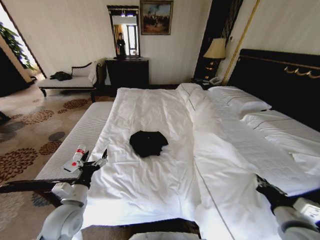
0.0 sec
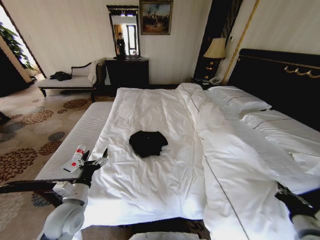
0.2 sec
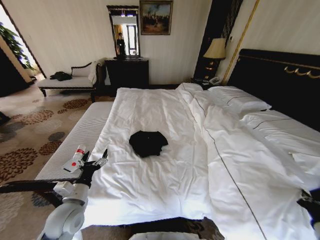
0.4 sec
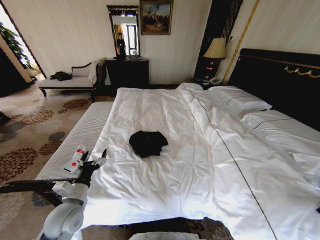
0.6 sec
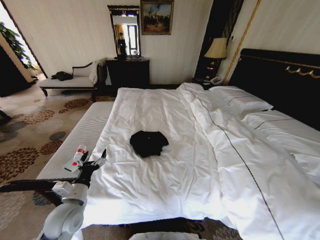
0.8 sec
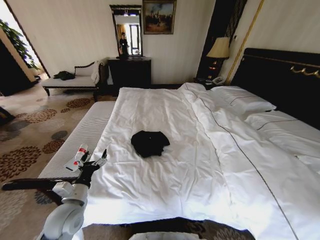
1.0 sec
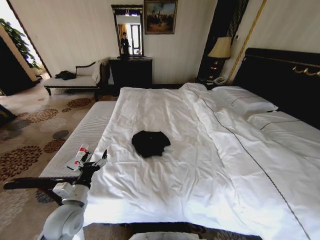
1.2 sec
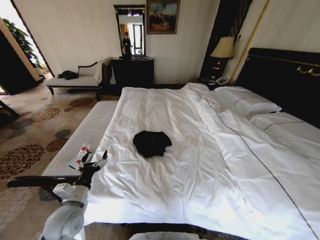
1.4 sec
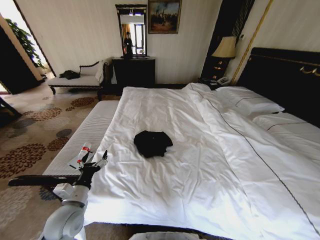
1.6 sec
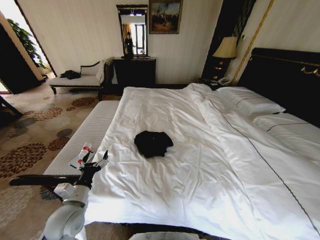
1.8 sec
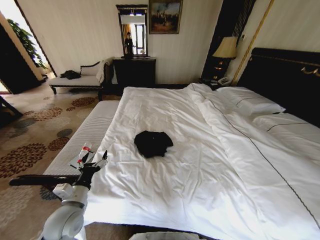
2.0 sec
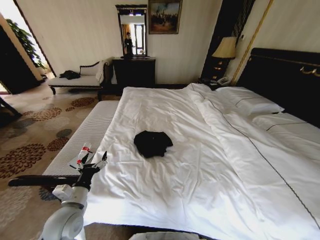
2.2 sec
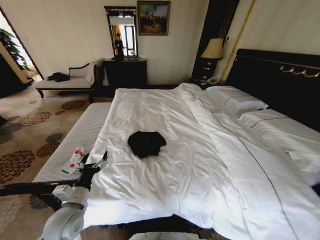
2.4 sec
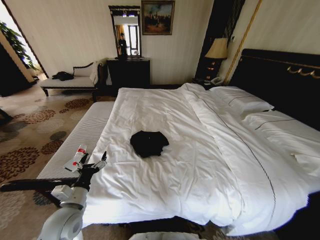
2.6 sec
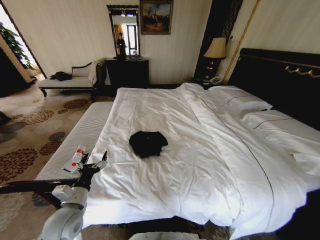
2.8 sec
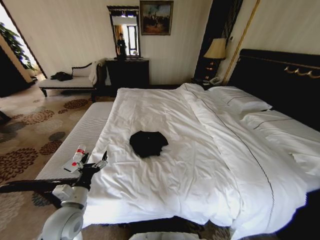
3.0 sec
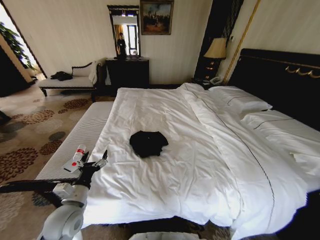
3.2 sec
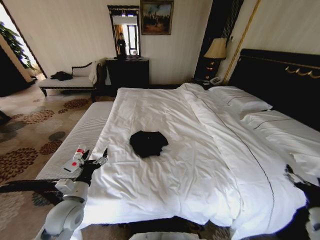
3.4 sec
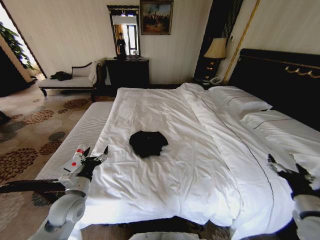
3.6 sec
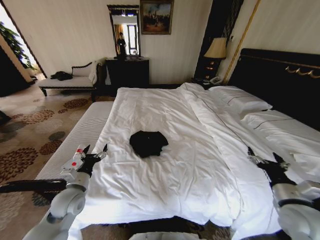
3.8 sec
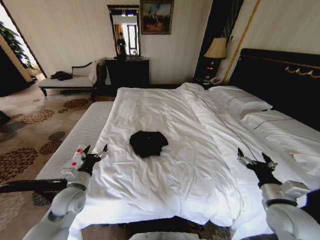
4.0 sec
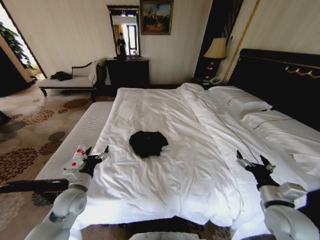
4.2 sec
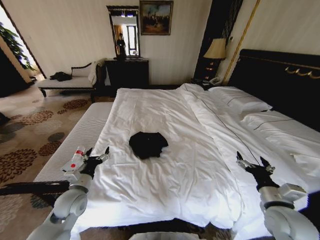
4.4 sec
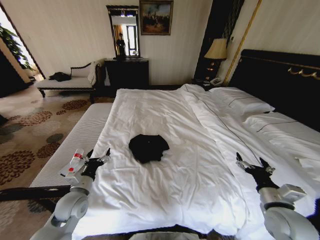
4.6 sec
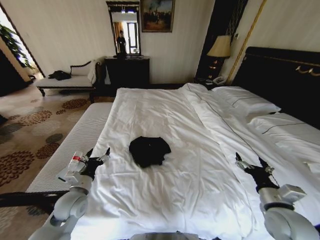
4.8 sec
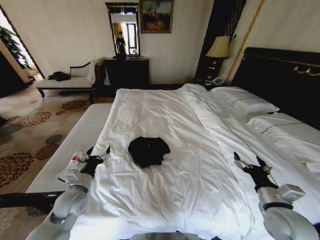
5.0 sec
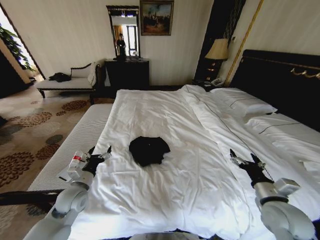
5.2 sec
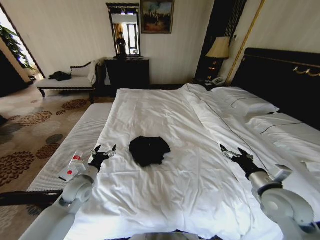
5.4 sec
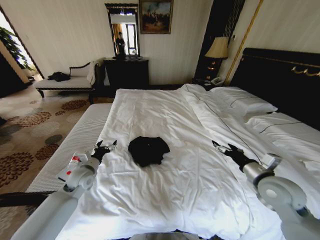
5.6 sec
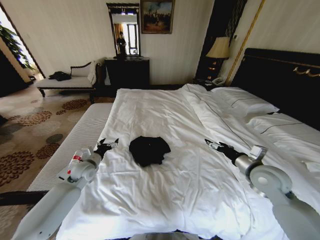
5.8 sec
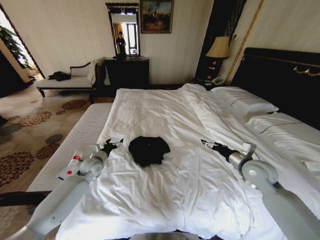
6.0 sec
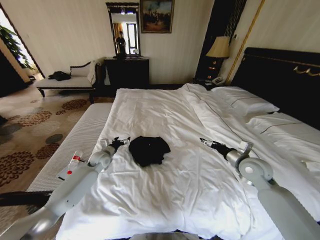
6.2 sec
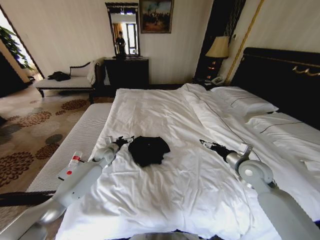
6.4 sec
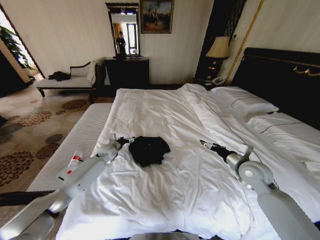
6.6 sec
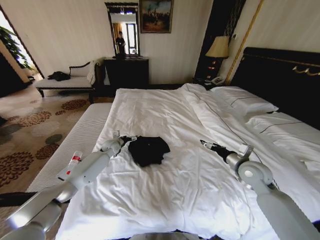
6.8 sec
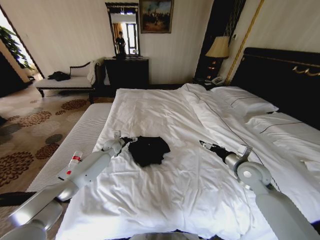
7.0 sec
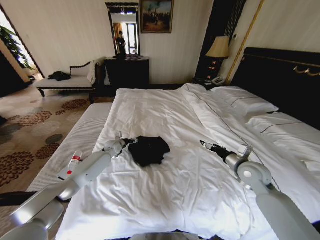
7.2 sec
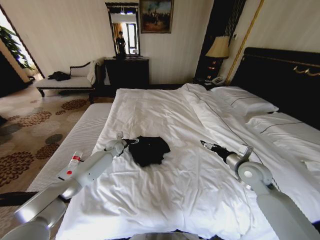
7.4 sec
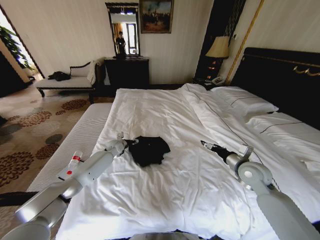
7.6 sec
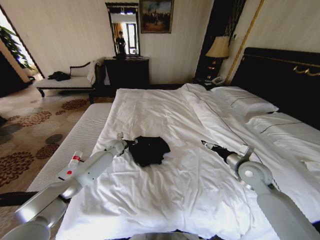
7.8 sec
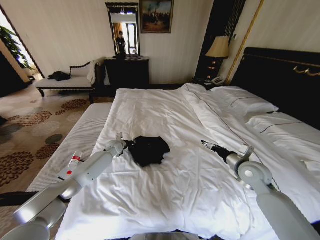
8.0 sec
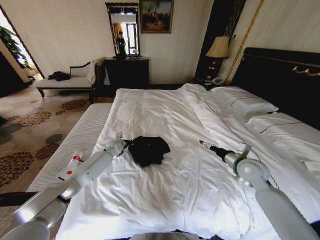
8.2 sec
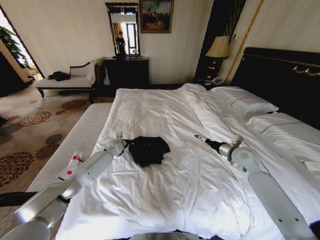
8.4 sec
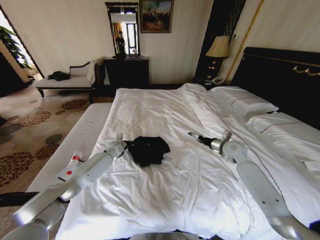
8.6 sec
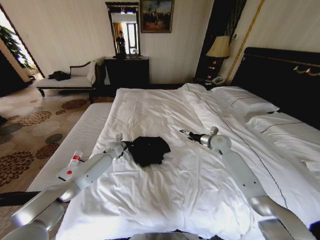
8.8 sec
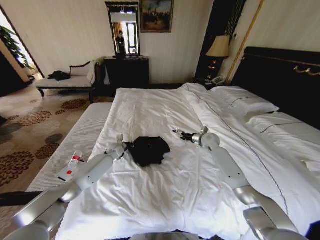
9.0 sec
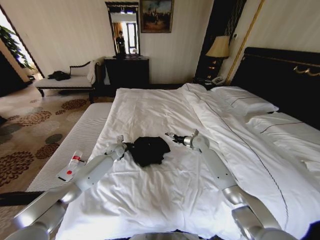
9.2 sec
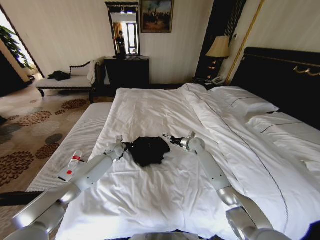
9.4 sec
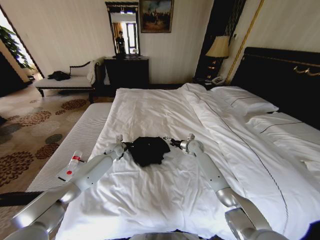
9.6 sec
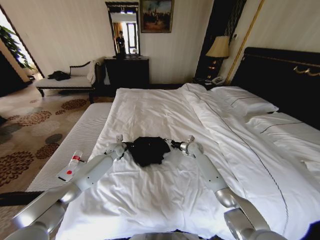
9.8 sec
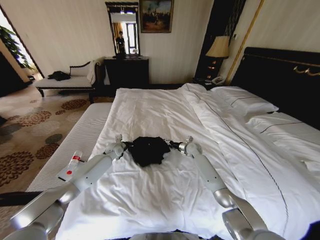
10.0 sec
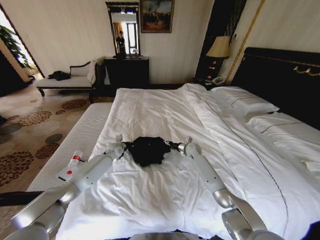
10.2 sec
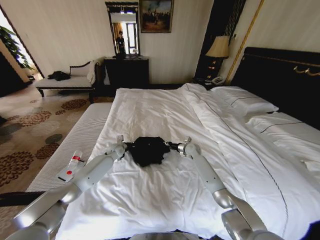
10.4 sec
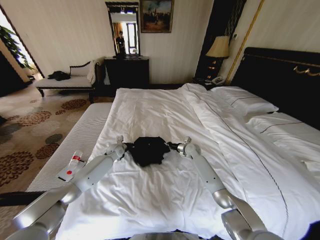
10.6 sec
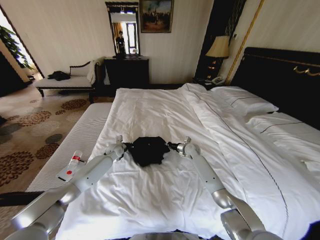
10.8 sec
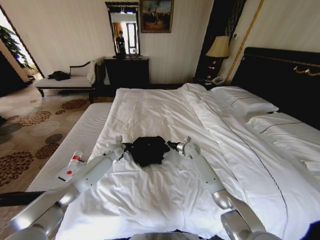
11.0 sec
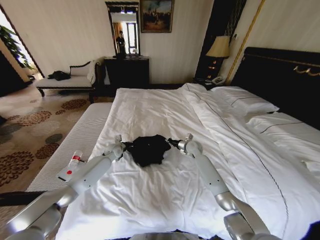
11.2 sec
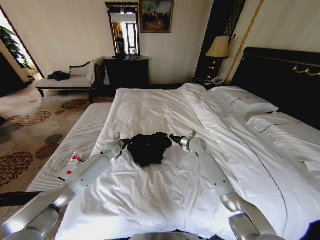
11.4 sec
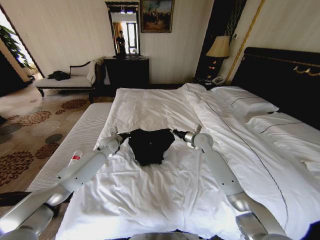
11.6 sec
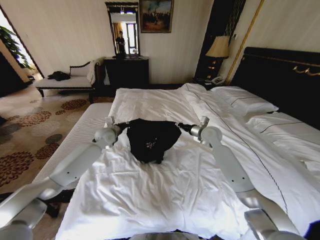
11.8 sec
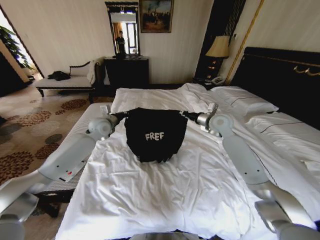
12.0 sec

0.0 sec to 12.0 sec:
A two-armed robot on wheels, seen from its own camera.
Task of the whole recording: Fold the clothes on the bed.
0.0 sec to 1.6 sec: The right gripper shifts roughly 30 cm to the right.
1.6 sec to 3.0 sec: The right gripper goes about 10 cm to the left, and opens.
3.0 sec to 4.4 sec: The left gripper heads forward, covering roughly 5 cm, while the right gripper shifts some 25 cm to the left and forward.
4.4 sec to 6.0 sec: The two grippers go approximately 15 cm forward.
6.0 sec to 7.6 sec: The left gripper is displaced forward and to the right by approximately 15 cm.
7.6 sec to 9.0 sec: The right gripper is displaced forward by roughly 20 cm; the left gripper closes.
9.0 sec to 10.4 sec: The right gripper is displaced downward and to the left by some 10 cm, and closes.
10.4 sec to 12.0 sec: The grippers both shift upward by approximately 20 cm. The right gripper closes its fingers.

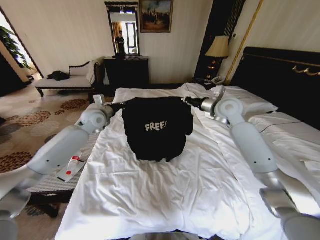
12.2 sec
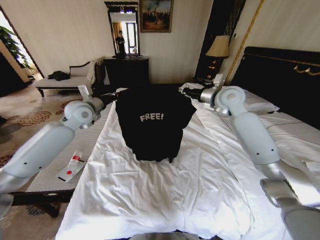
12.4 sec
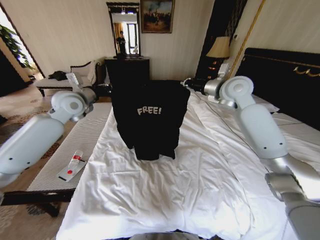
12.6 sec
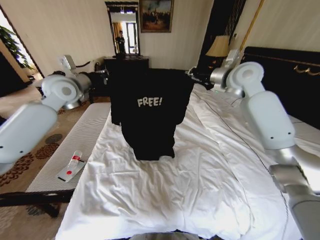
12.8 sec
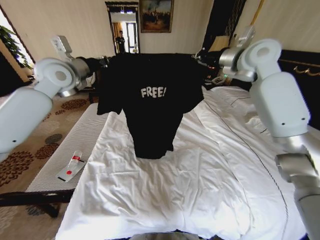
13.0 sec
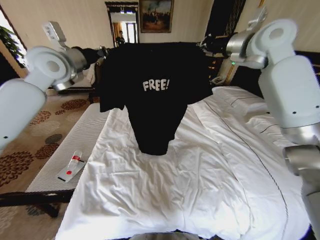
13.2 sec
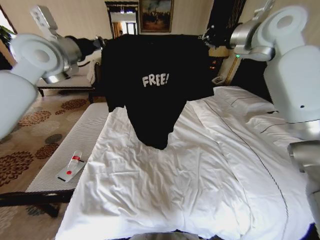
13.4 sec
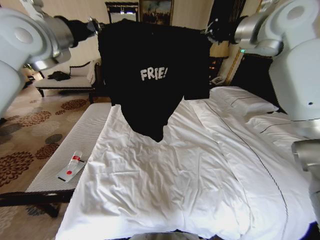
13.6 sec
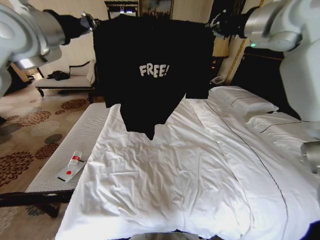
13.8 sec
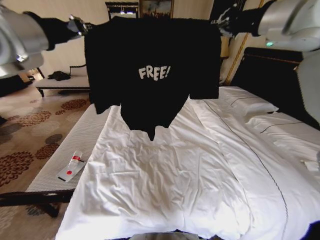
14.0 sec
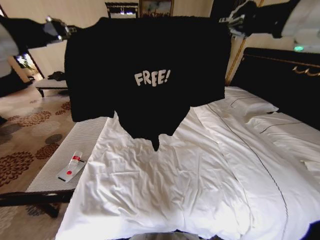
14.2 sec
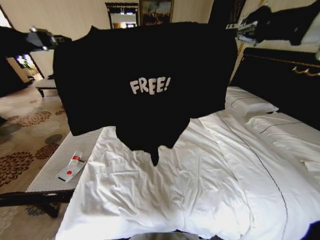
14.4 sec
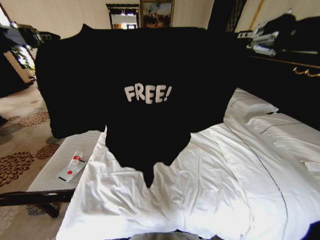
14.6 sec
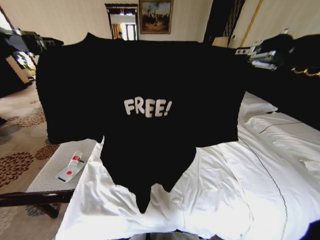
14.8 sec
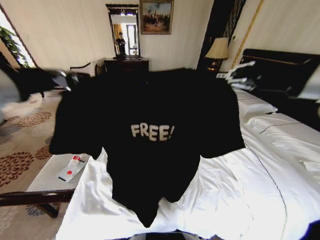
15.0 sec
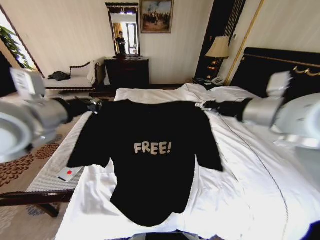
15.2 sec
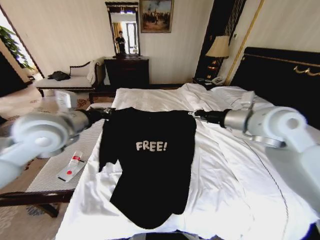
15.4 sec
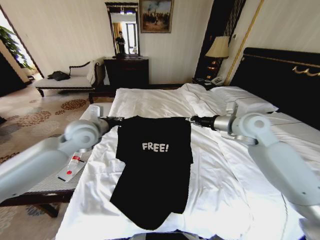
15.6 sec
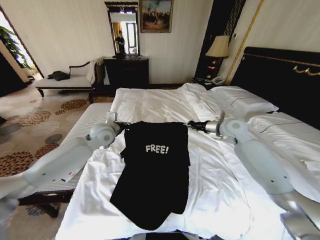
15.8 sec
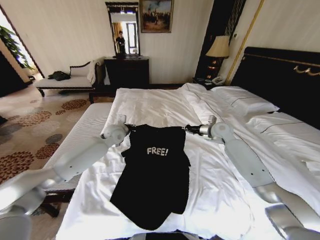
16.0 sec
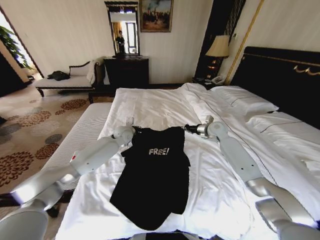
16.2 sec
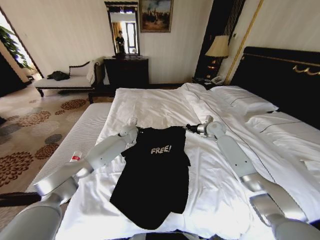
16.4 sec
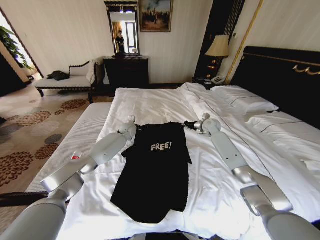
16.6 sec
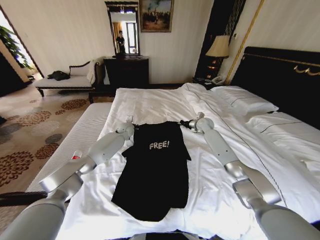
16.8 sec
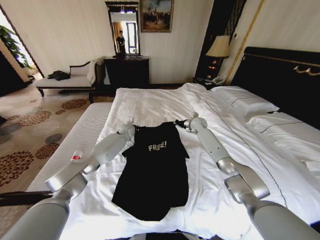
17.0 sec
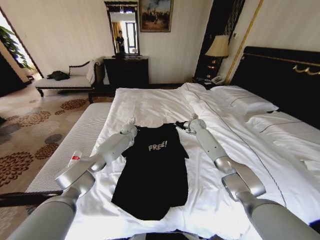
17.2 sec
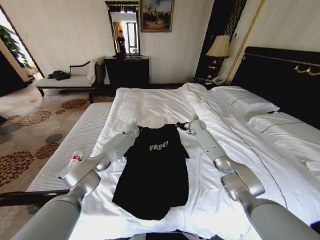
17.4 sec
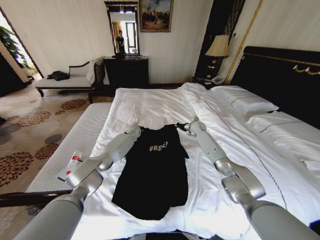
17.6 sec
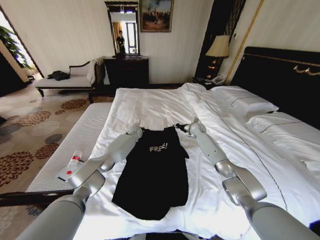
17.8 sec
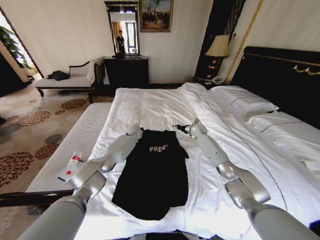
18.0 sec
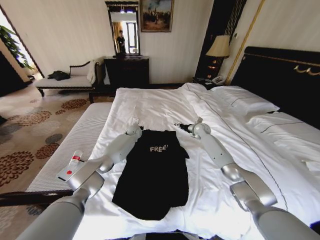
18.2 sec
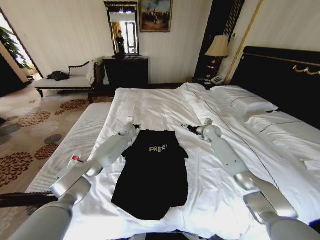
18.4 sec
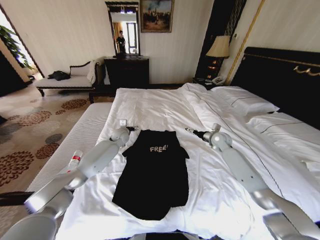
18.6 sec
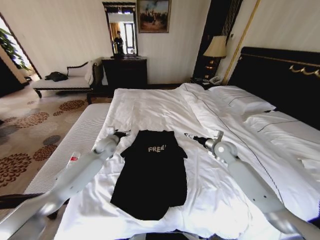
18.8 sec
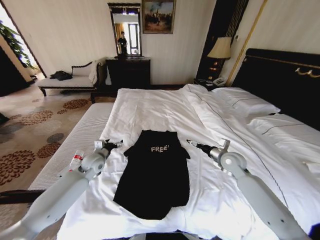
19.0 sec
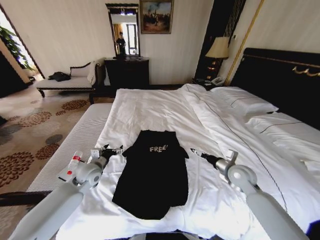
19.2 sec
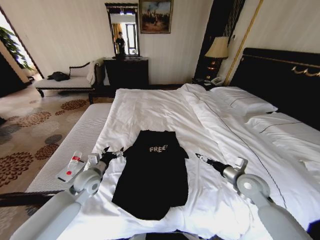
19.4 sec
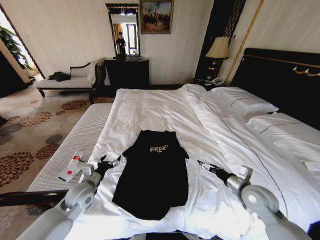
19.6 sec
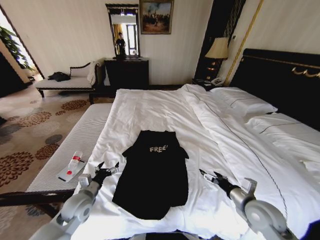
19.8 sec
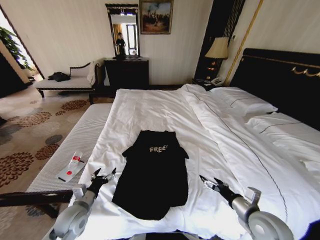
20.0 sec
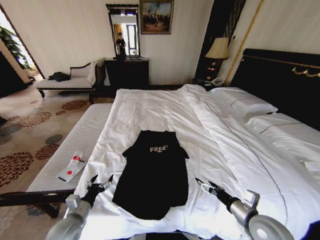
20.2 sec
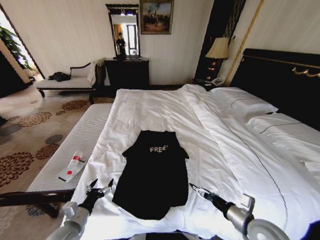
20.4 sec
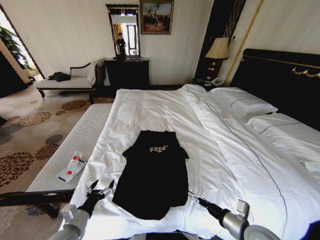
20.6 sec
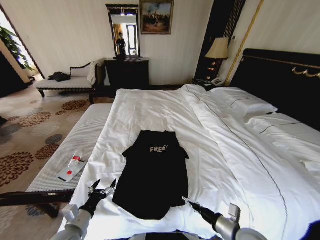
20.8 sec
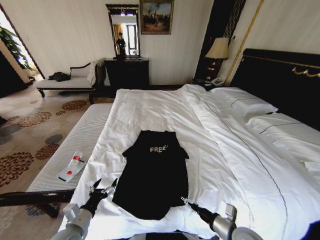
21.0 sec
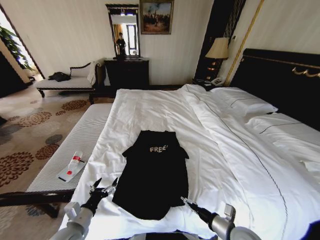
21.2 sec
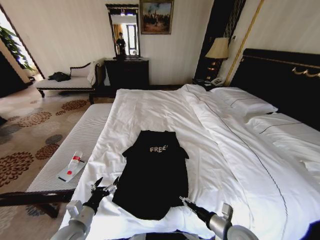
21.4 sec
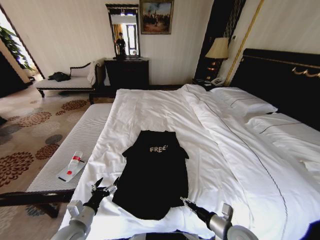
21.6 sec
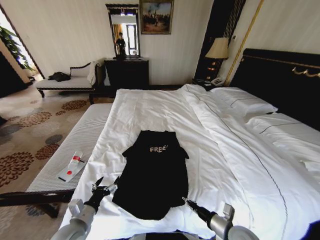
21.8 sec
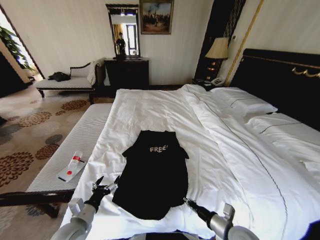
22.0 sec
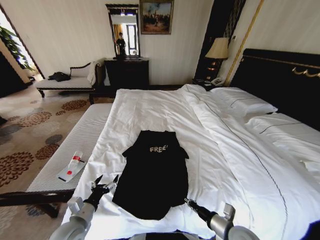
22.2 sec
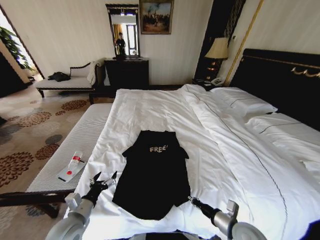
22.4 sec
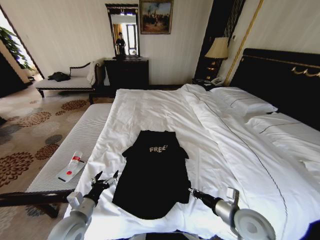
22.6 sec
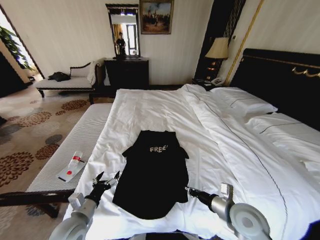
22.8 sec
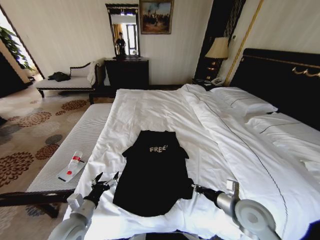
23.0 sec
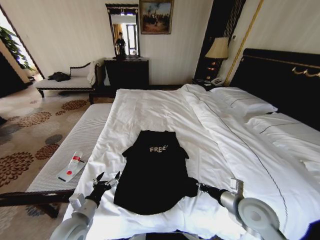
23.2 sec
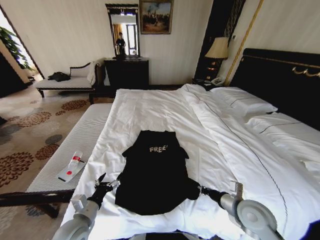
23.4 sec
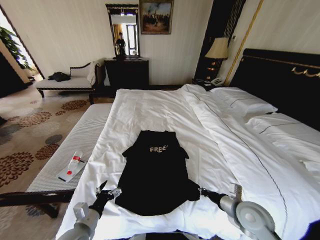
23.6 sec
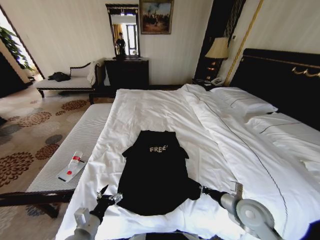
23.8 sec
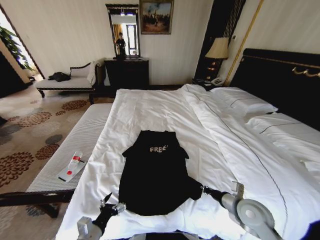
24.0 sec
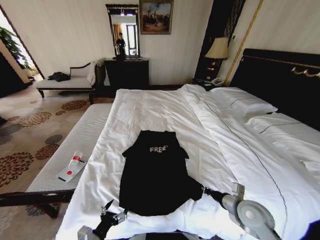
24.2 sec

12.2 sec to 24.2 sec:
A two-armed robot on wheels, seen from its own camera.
Task of the whole recording: Fold the clothes on the bed.
12.2 sec to 13.8 sec: Both grippers travel together upward, about 25 cm.
13.8 sec to 15.2 sec: Both grippers travel together backward and downward, some 20 cm.
15.2 sec to 16.6 sec: The grippers both shift forward and downward by about 40 cm.
16.6 sec to 18.2 sec: The right gripper ends up about 5 cm from where it was, and opens up, while the left gripper shifts by roughly 5 cm, and opens its fingers.
18.2 sec to 19.8 sec: The left gripper is displaced backward and to the left by approximately 40 cm, and opens its fingers. The right gripper moves backward, approximately 40 cm, and opens its fingers.
19.8 sec to 21.2 sec: The left gripper travels backward by approximately 10 cm, while the right gripper heads backward, to the left and downward, covering approximately 10 cm.
21.2 sec to 22.6 sec: The right gripper heads upward, covering approximately 5 cm, and closes.
22.6 sec to 24.2 sec: The right gripper ends up some 5 cm from where it was. The left gripper heads backward and downward, covering roughly 10 cm.
